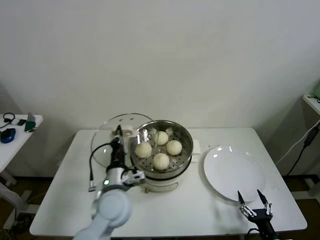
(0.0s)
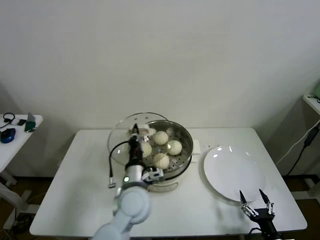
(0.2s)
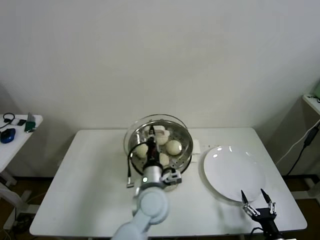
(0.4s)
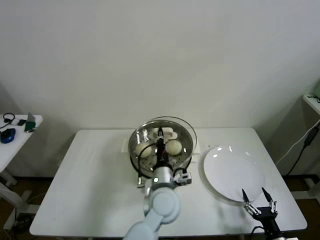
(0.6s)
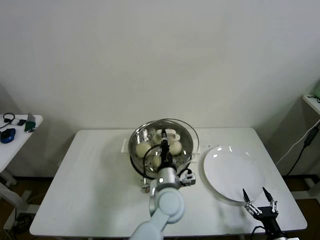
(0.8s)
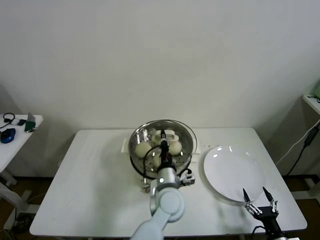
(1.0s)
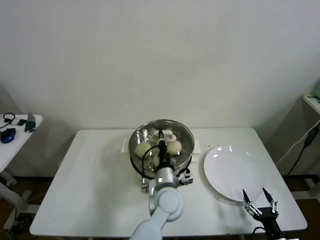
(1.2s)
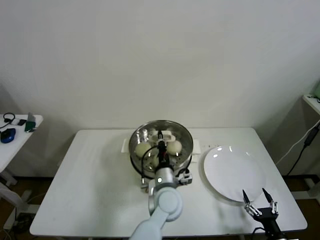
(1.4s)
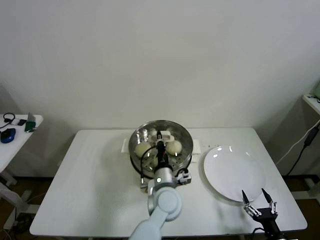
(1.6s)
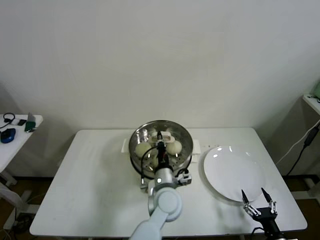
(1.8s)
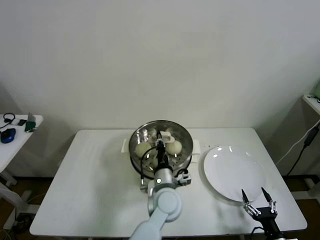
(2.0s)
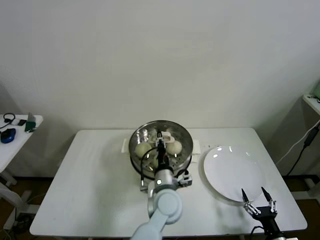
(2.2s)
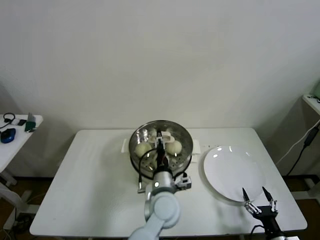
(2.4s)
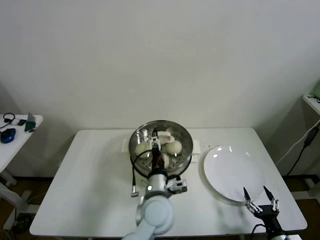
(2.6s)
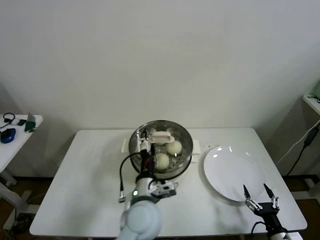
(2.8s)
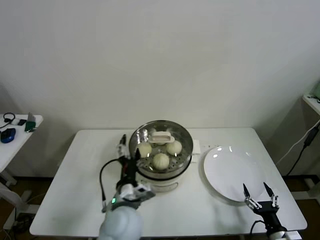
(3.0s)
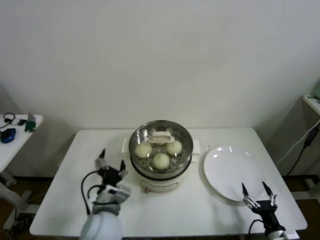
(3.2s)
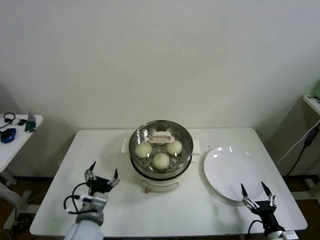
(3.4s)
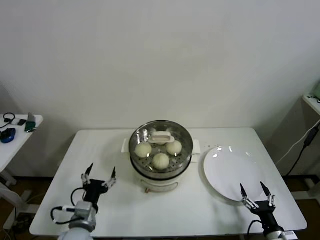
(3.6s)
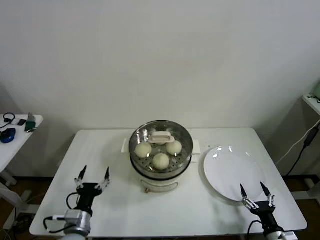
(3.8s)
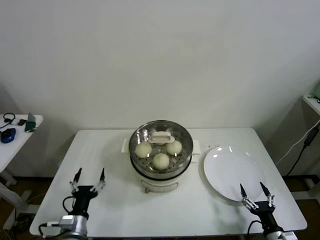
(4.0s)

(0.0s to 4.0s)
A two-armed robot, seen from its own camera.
Step, 0.0s - 2.0s: Place the pot lid on the steamer with left gripper.
0.0s - 1.4s: The left gripper travels to the right by approximately 15 cm.
1.4s - 2.6s: The left gripper opens up.
2.6s - 4.0s: The left gripper goes about 25 cm to the left.
